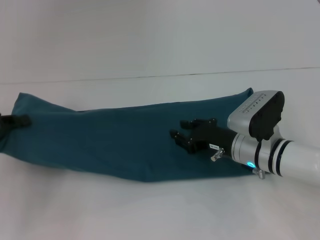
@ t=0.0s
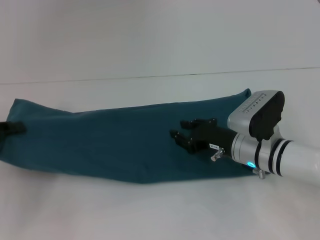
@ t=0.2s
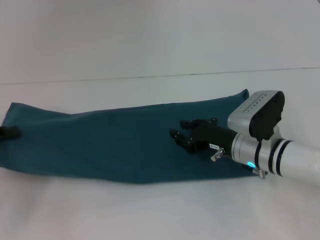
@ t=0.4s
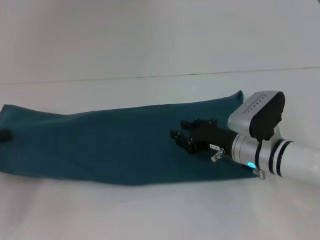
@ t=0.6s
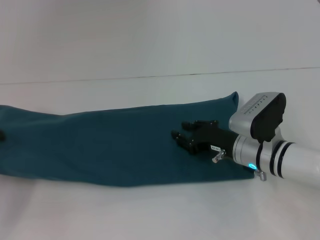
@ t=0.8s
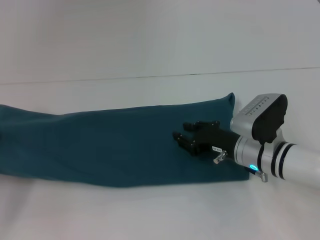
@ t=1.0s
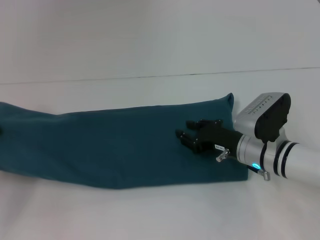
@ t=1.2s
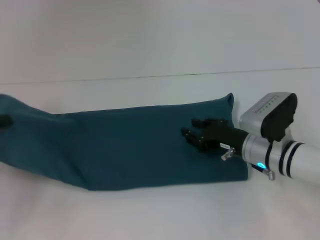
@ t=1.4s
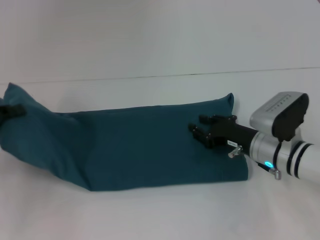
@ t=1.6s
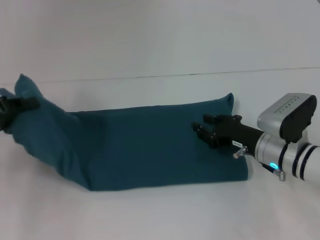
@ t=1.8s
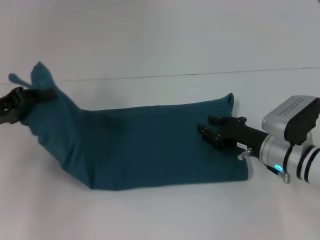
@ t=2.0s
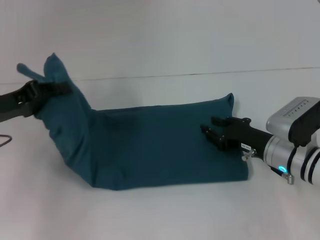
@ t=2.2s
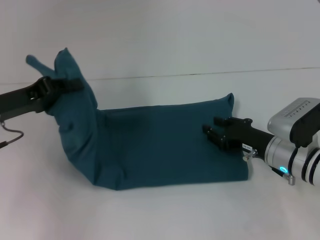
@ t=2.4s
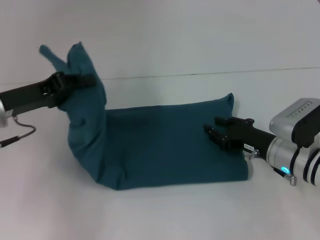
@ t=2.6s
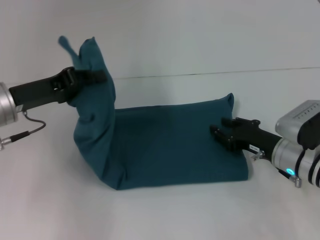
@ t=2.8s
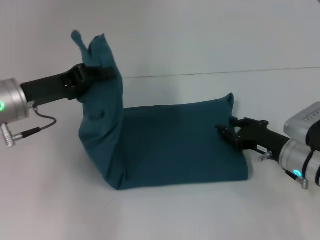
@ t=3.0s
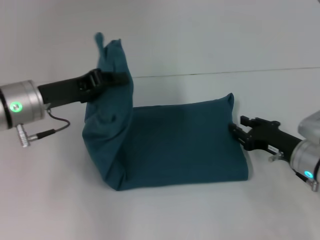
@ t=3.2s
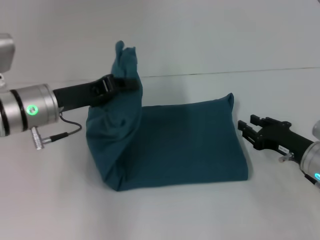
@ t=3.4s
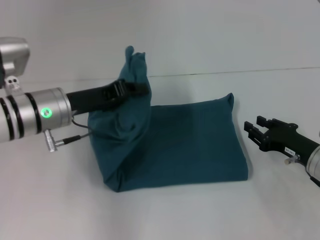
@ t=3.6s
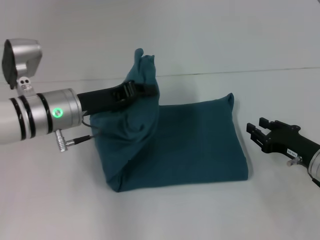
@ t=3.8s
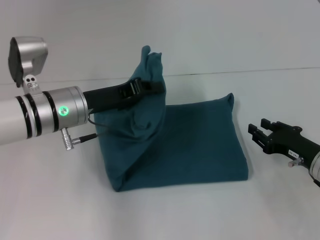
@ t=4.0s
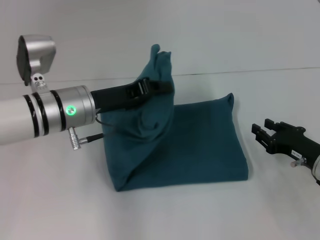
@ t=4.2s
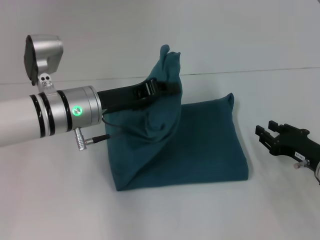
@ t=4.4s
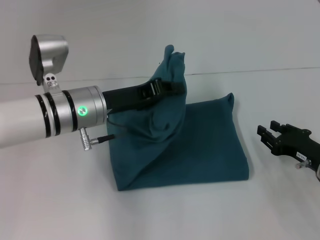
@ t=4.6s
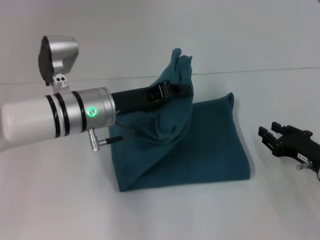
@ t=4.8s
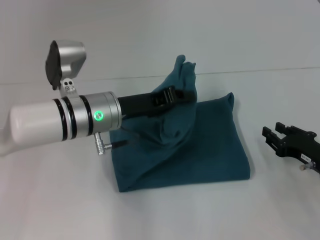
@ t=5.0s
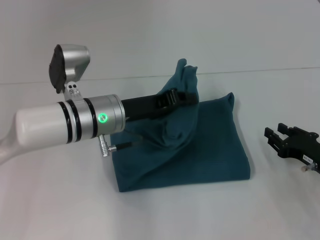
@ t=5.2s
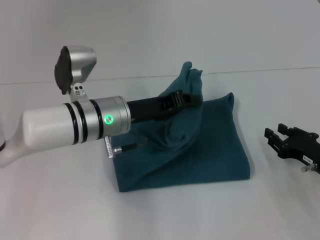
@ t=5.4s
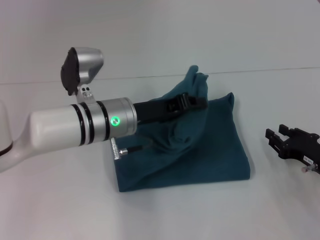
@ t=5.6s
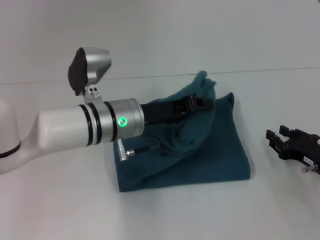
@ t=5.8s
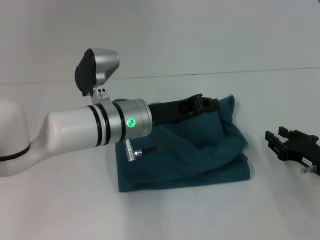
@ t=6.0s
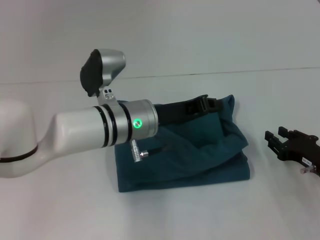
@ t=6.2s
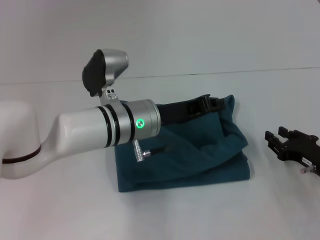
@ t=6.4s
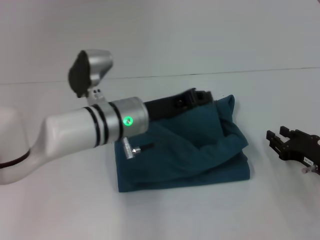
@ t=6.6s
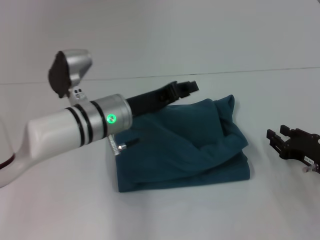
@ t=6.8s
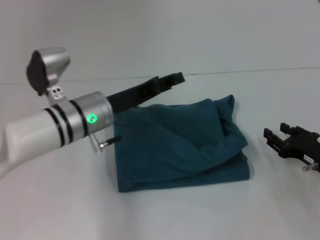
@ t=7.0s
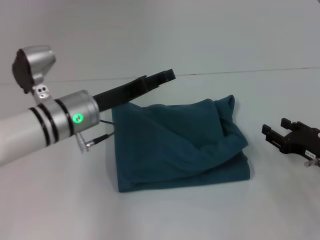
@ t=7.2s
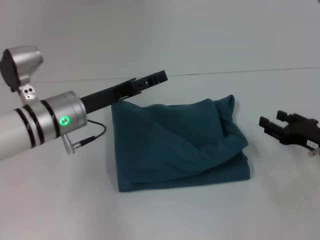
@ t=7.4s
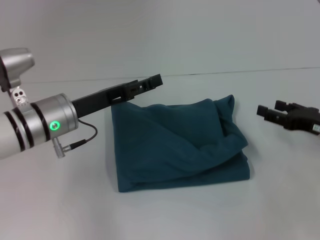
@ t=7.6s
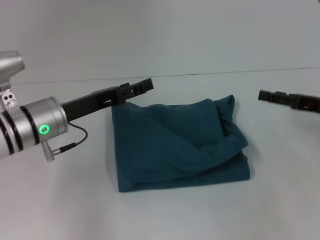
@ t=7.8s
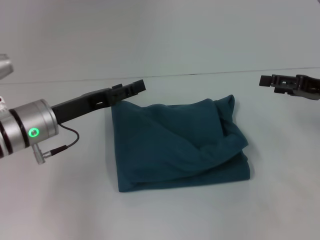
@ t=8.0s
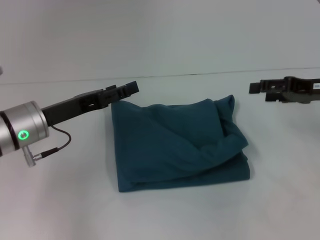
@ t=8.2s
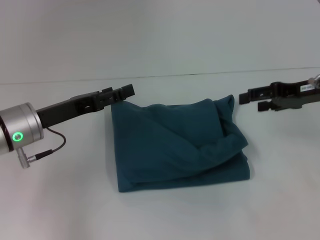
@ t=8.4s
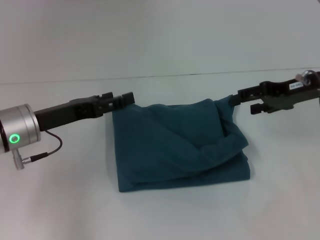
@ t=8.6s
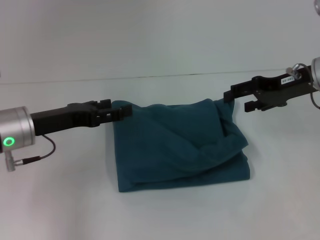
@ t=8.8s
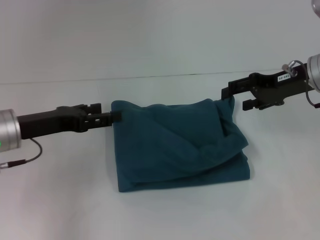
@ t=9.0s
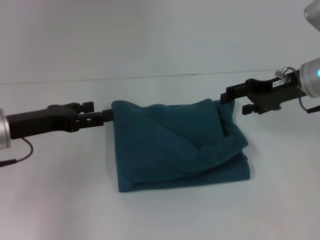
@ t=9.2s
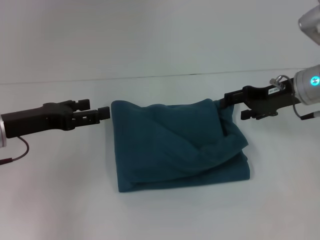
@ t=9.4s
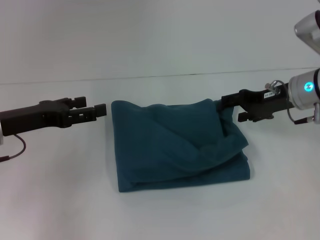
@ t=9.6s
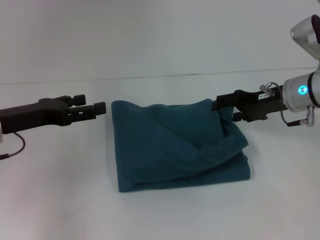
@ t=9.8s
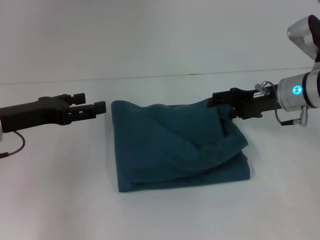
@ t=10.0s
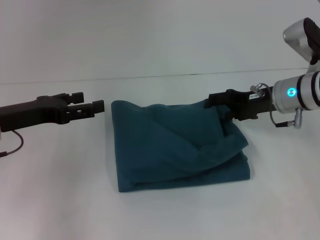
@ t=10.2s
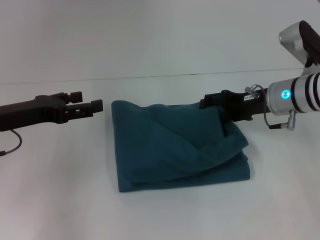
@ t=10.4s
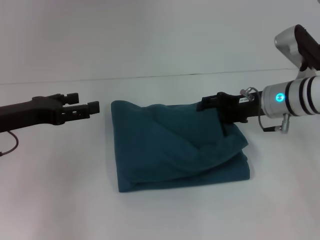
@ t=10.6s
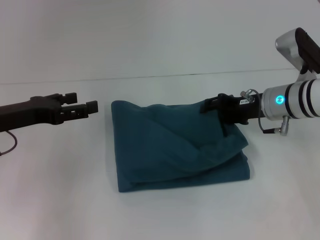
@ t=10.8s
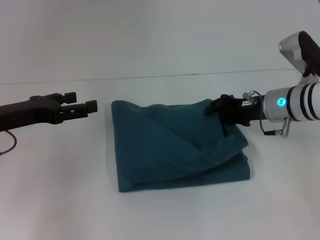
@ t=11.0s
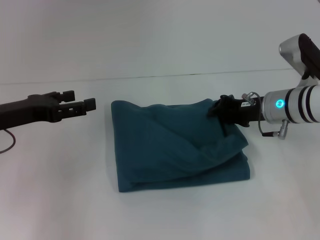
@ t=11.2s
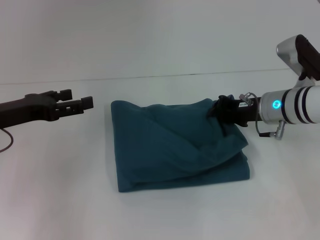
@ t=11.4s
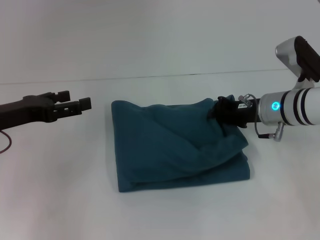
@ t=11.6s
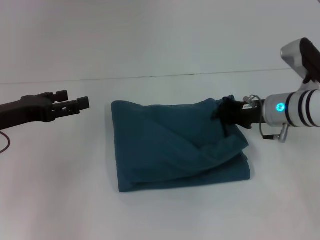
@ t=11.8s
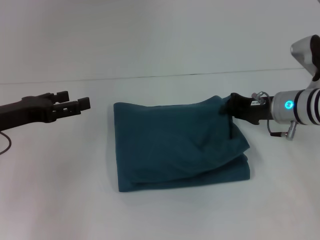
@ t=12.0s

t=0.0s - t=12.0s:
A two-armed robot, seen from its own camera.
Step, t=0.0s - t=6.0s: Fold the clothes to the left.
t=0.0s - t=1.6s: There are only small adjustments of the grippers.
t=1.6s - t=3.0s: The left gripper goes about 10 cm to the right.
t=3.0s - t=4.4s: The left gripper is displaced to the right by roughly 10 cm. The right gripper shifts roughly 5 cm to the right.
t=4.4s - t=6.0s: The left gripper is displaced to the right by about 5 cm.
t=6.0s - t=7.6s: The right gripper moves upward, about 5 cm, while the left gripper goes about 10 cm to the left, and opens up.
t=7.6s - t=9.0s: The left gripper travels to the left by approximately 5 cm. The right gripper moves upward, forward and to the left, approximately 15 cm.
t=9.0s - t=10.4s: The right gripper travels downward by about 5 cm.
t=10.4s - t=12.0s: The right gripper closes up.

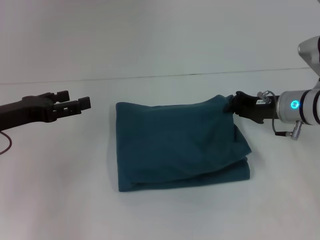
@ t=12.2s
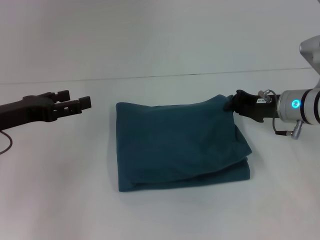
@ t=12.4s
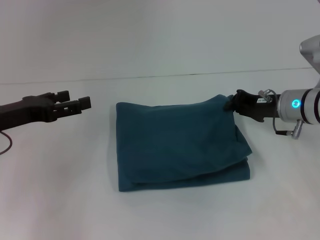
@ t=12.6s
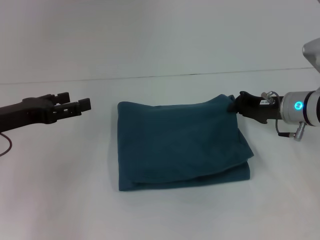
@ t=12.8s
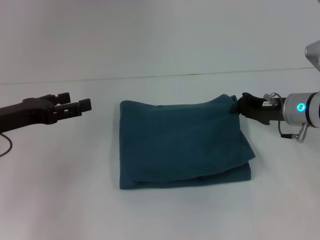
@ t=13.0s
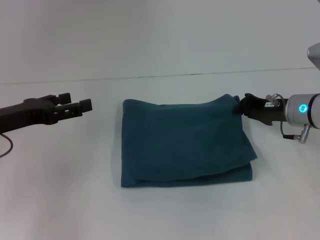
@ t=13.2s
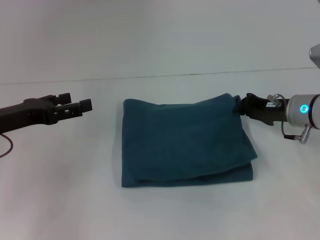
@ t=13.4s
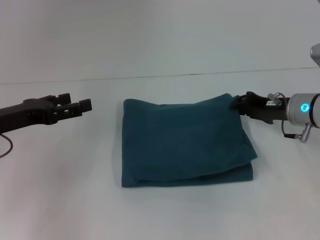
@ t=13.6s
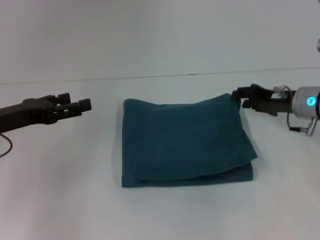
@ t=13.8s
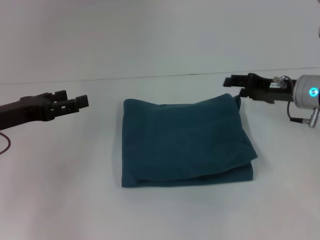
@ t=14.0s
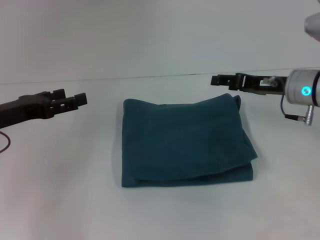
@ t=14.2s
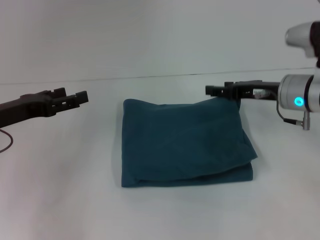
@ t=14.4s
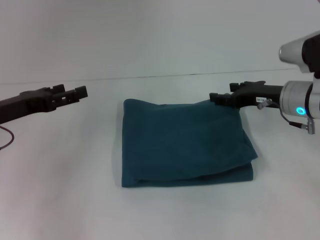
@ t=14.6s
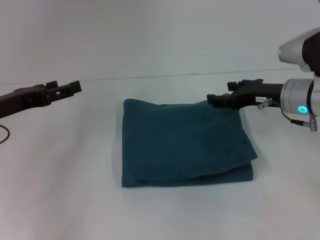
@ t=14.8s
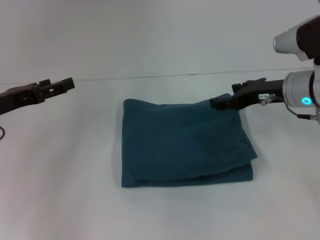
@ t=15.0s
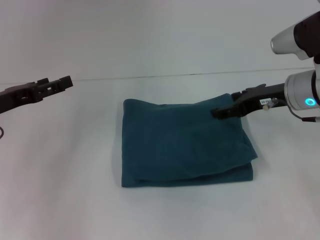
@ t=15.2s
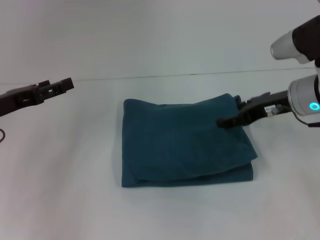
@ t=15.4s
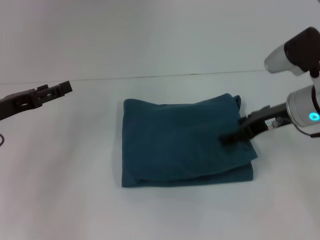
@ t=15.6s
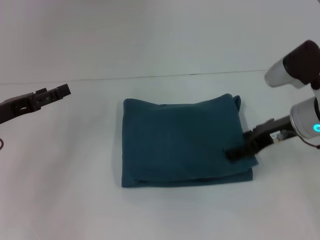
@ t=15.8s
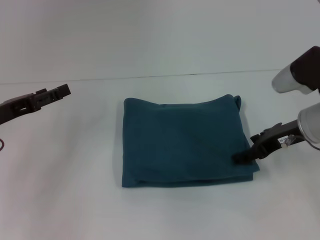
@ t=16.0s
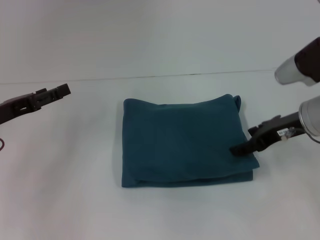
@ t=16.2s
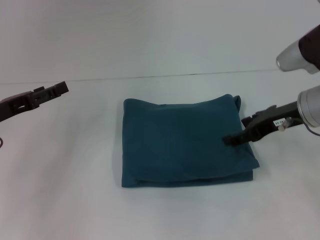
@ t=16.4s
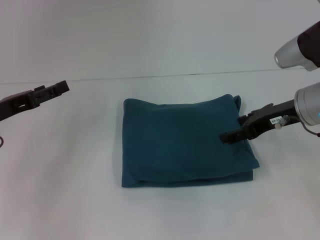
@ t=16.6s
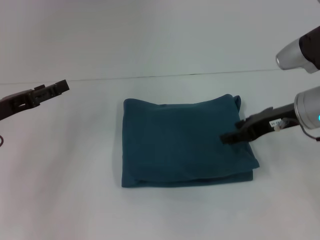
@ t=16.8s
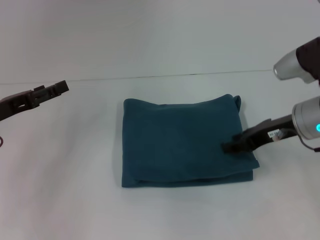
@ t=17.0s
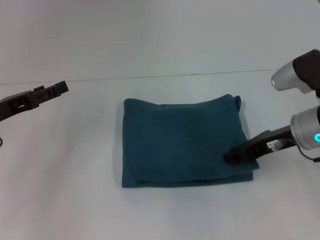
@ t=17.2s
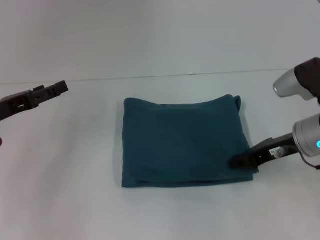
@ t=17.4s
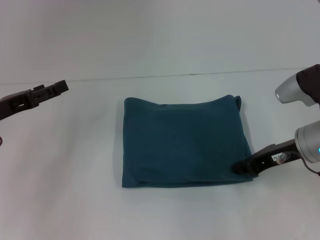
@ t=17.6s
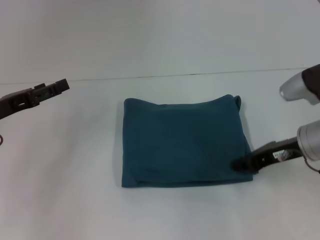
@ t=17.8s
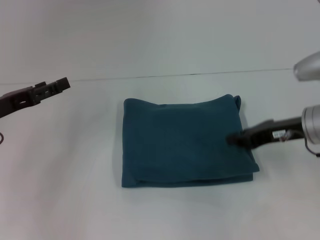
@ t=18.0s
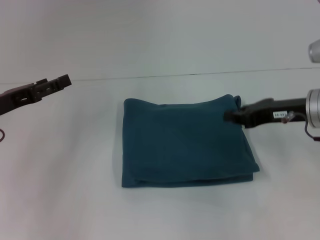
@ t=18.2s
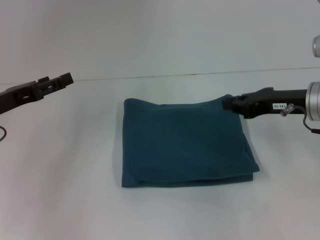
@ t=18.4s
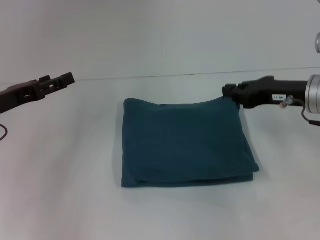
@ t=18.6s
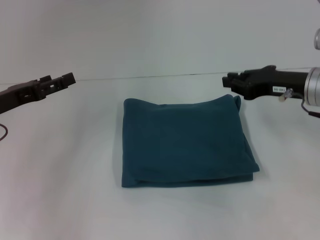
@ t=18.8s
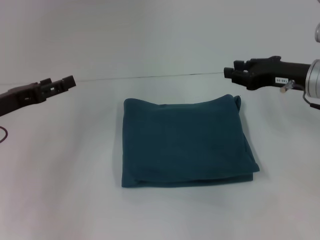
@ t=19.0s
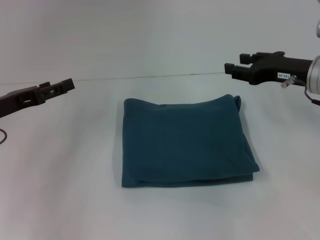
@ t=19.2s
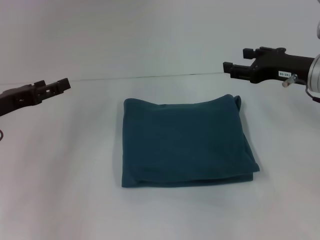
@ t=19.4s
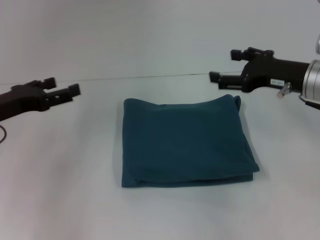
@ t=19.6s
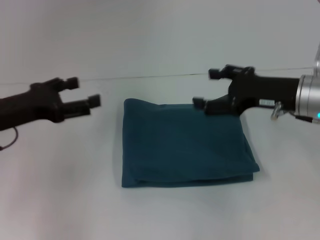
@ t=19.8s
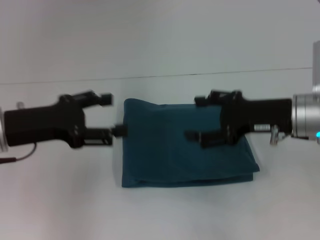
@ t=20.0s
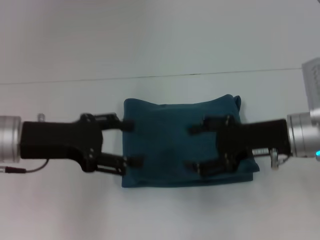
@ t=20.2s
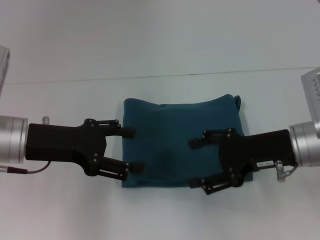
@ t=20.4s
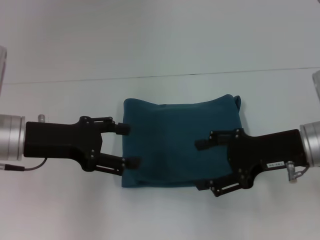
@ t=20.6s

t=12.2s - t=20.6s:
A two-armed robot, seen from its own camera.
t=12.2s - t=13.6s: The grippers move only a little.
t=13.6s - t=15.0s: The right gripper shifts some 5 cm upward, and opens.
t=16.4s - t=17.8s: The right gripper changes place by roughly 5 cm, and closes up.
t=17.8s - t=19.2s: The right gripper shifts by some 5 cm.
t=19.2s - t=20.6s: The left gripper shifts approximately 5 cm to the right, while the right gripper travels backward by about 5 cm, and opens its fingers.
